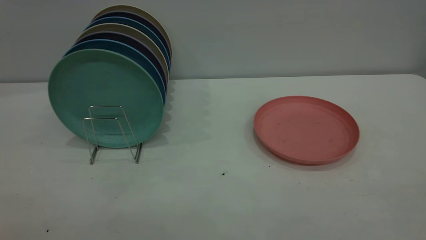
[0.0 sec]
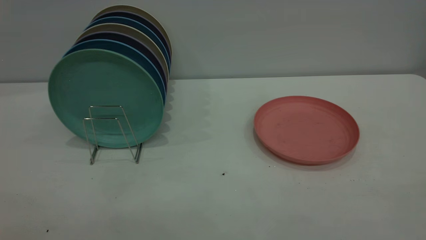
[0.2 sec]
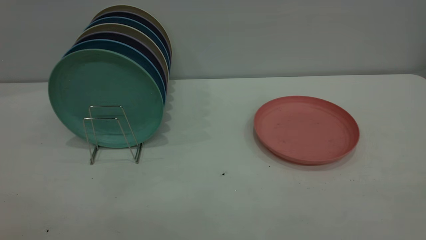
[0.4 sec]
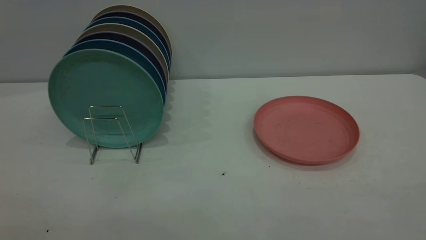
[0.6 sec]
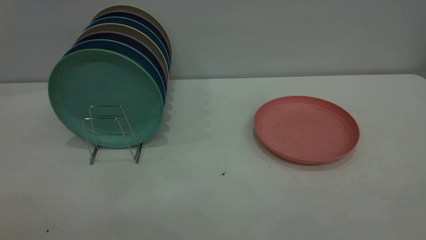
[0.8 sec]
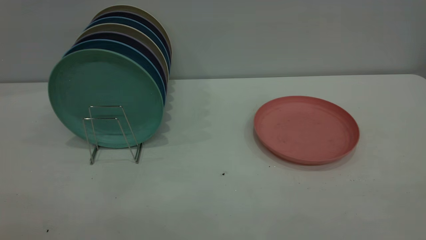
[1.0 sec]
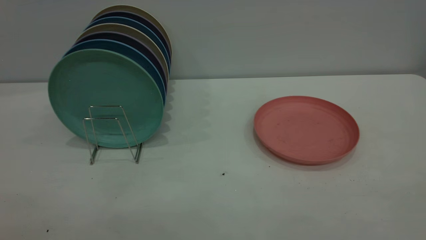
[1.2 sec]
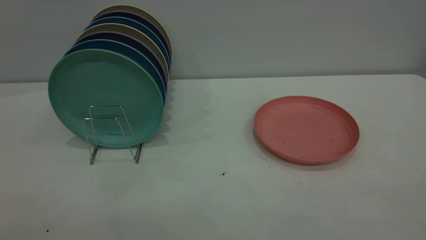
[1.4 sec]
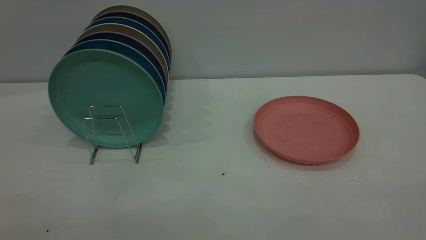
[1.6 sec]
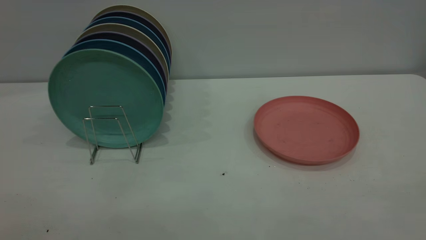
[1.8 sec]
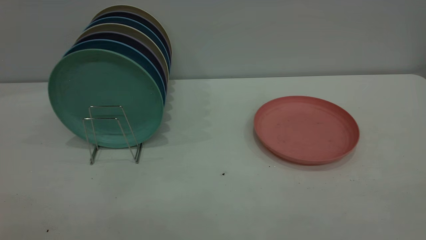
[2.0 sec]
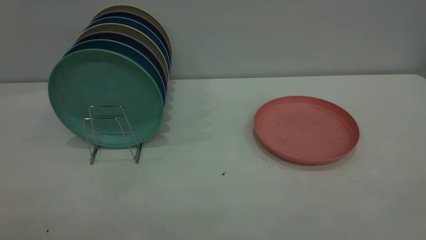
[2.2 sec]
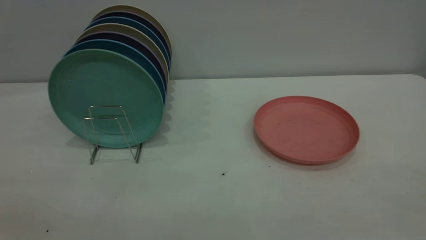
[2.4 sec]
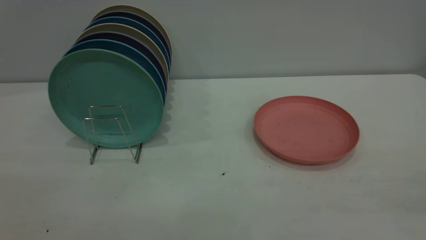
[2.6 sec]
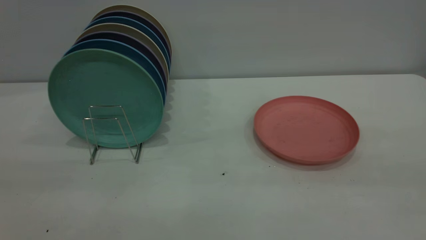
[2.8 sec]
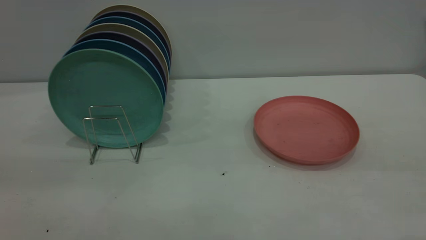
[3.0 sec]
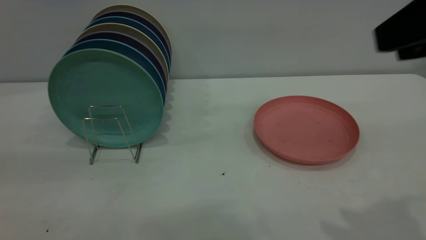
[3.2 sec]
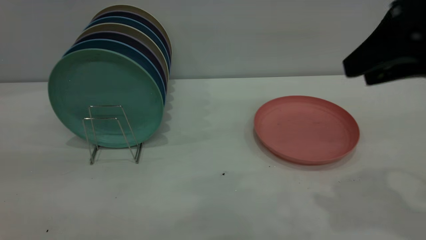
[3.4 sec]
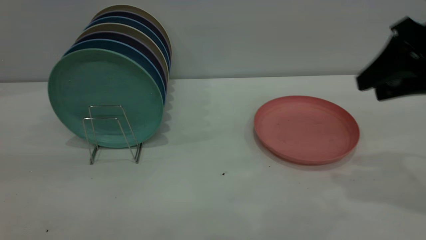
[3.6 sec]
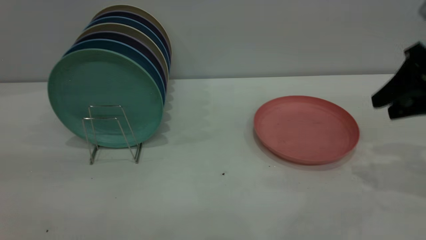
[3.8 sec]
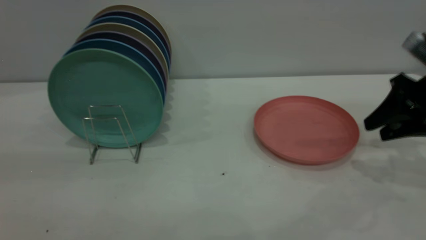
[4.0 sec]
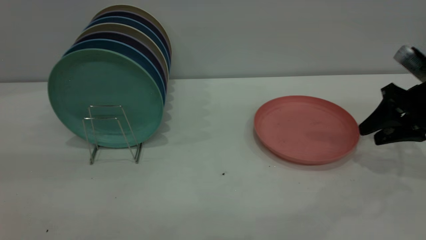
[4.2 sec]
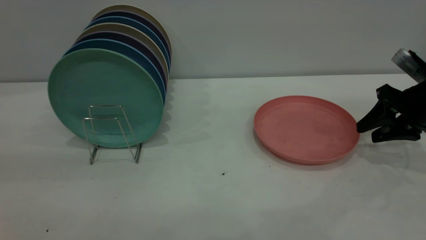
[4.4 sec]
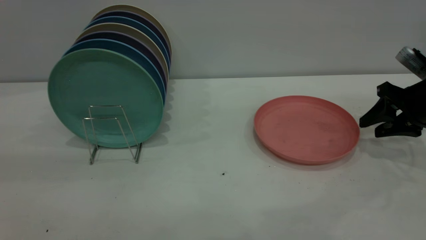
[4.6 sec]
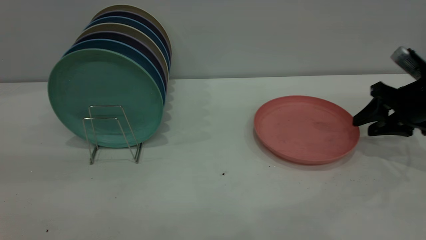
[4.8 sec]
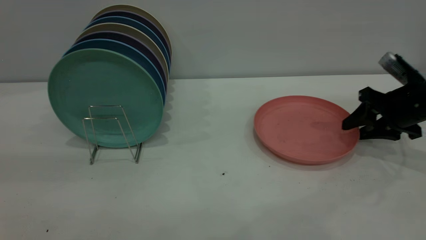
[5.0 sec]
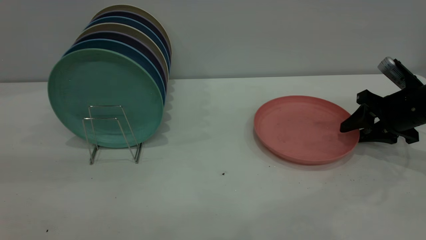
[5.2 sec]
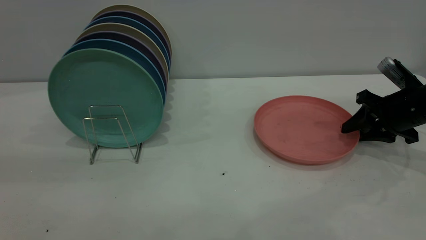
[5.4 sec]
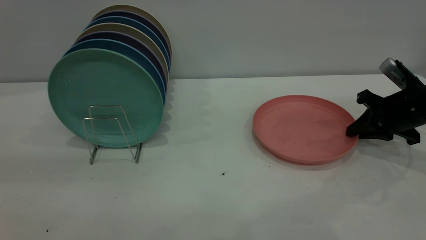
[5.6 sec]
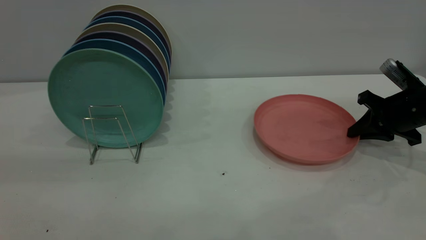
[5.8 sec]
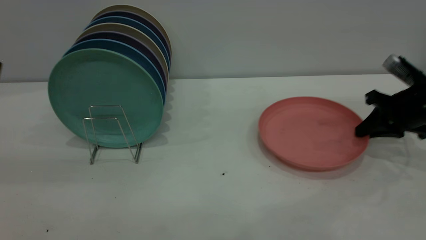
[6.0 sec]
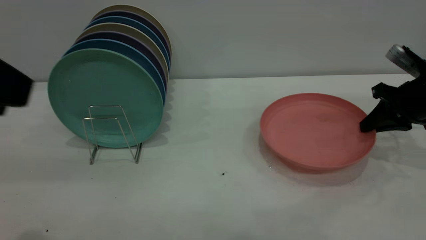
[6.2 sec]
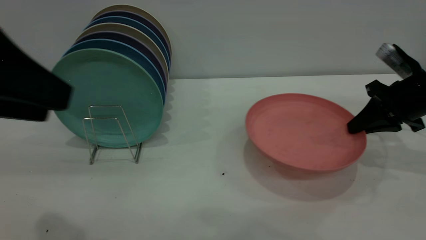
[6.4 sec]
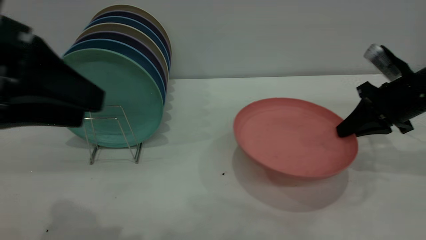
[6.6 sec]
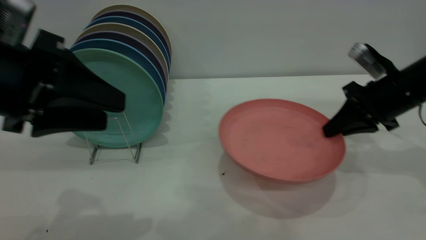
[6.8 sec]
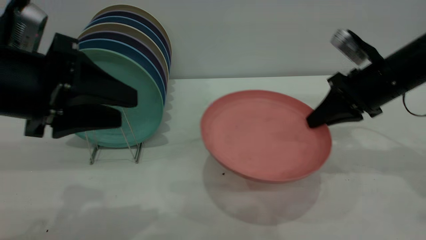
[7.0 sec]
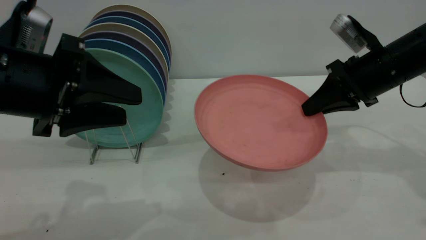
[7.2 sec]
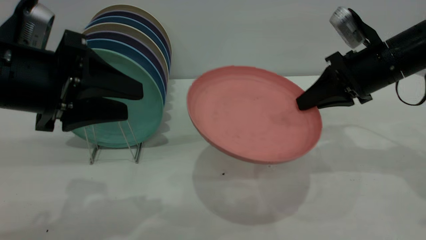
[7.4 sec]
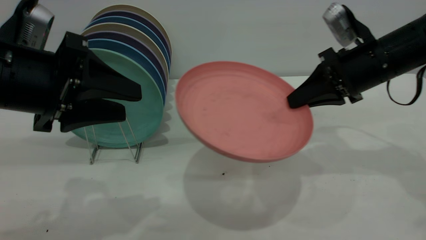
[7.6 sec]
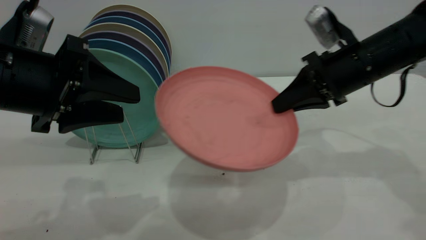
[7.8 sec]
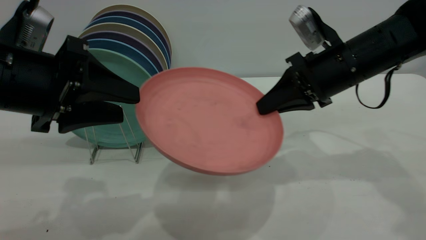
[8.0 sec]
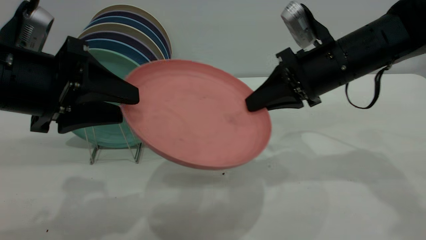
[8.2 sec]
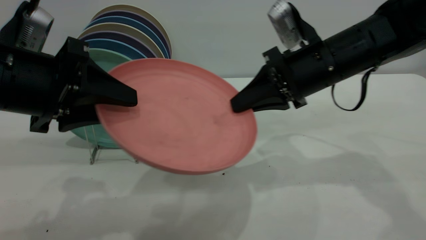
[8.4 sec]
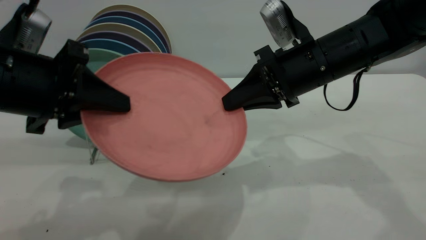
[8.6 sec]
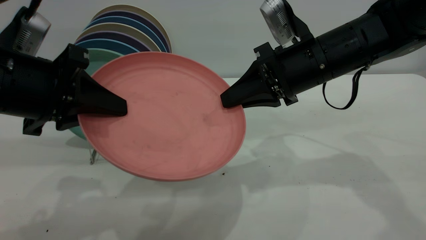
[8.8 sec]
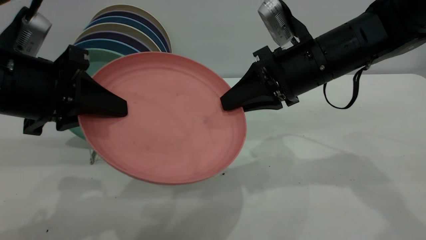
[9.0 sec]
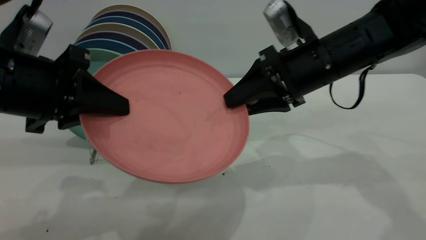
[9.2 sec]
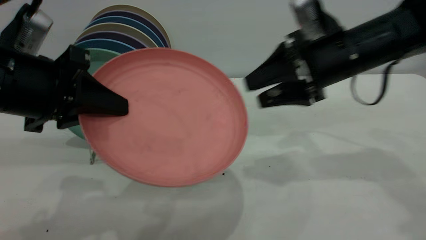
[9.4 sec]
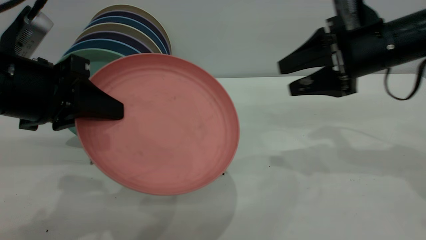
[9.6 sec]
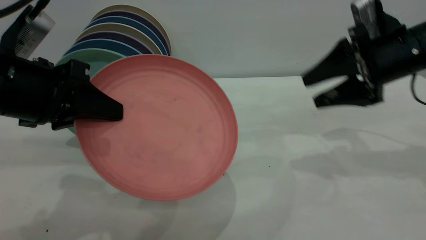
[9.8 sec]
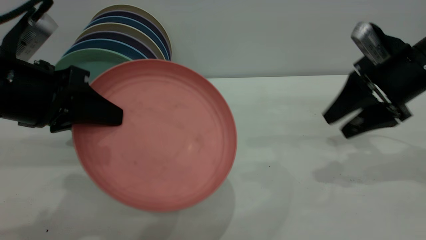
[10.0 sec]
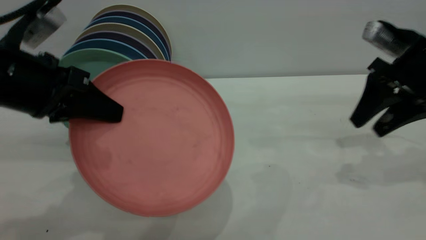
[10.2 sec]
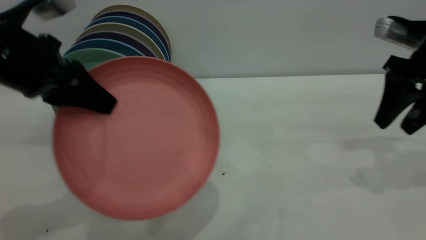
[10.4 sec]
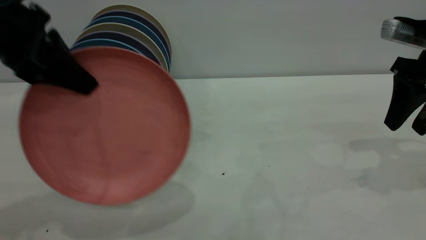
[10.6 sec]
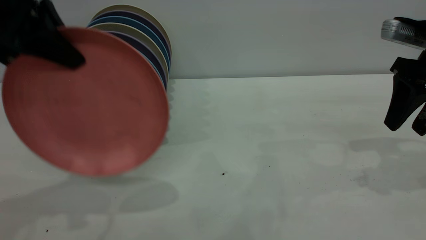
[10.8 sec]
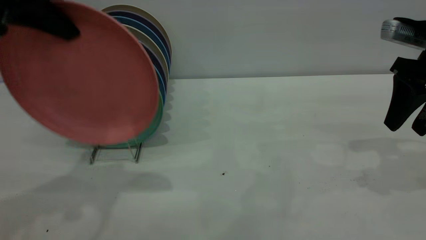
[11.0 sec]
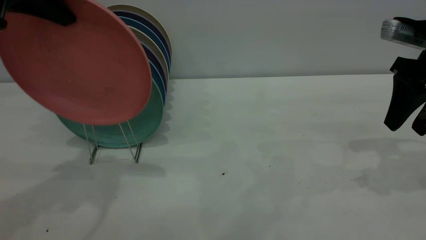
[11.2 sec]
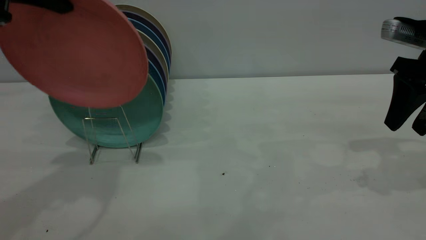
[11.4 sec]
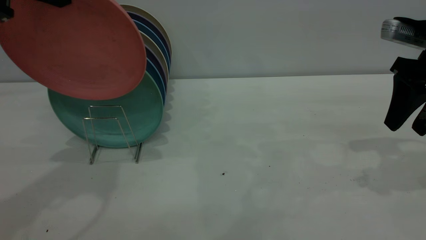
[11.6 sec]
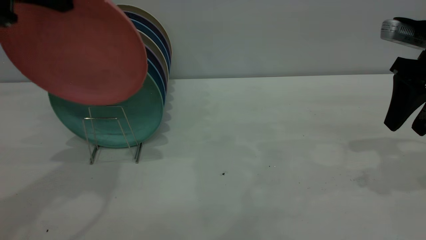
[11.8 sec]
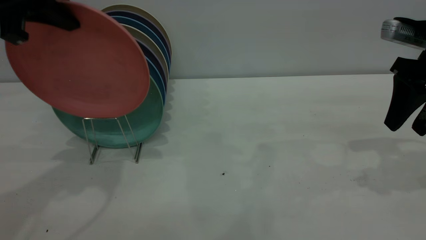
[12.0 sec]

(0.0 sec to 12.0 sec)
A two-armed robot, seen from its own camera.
Task of the whole recording: the right gripper grasp the pink plate, the right gripper pass the pink plate to the left gripper, and the left gripper place the pink plate on the plate rack.
Step, 0.0 sec - 6.4 sec: Pick up the plate with the right gripper.
Step, 6.6 sec - 9.4 sec: Pass the plate from the right gripper to the left gripper.
0.0 sec - 1.6 sec: Neither gripper changes place.
3.0 sec - 4.4 sec: The right gripper shifts some 35 cm downward, forward and to the right.
4.4 sec - 6.0 sec: The right gripper closes up.
6.0 sec - 7.6 sec: The left gripper heads downward and forward, covering roughly 15 cm. The right gripper moves to the left and upward, about 15 cm.
7.6 sec - 9.0 sec: The right gripper goes roughly 10 cm to the left; the left gripper closes.
9.0 sec - 10.4 sec: The right gripper shifts approximately 15 cm to the right, and opens its fingers; the left gripper changes place by about 5 cm.
10.4 sec - 12.0 sec: The left gripper goes approximately 10 cm upward and forward.

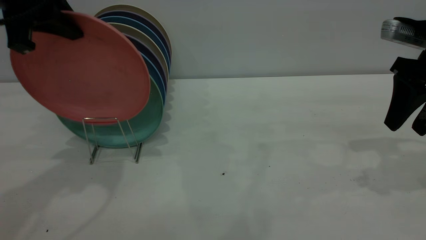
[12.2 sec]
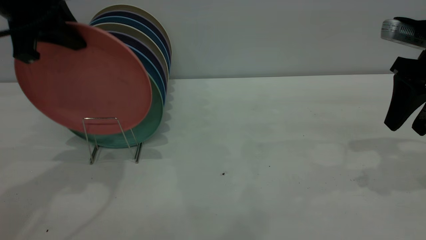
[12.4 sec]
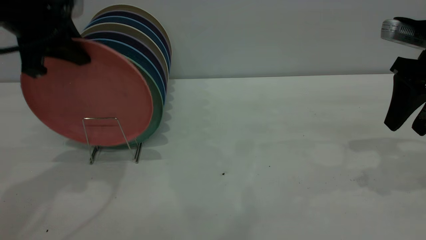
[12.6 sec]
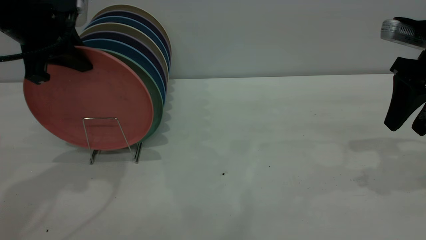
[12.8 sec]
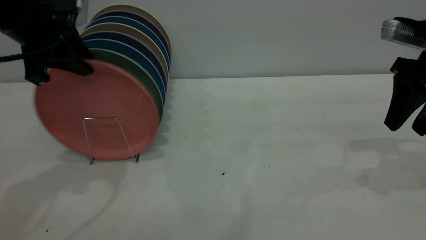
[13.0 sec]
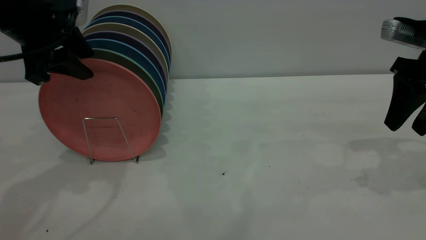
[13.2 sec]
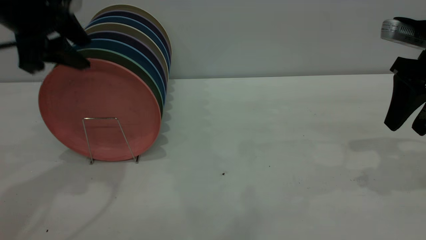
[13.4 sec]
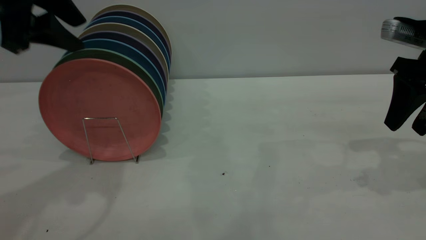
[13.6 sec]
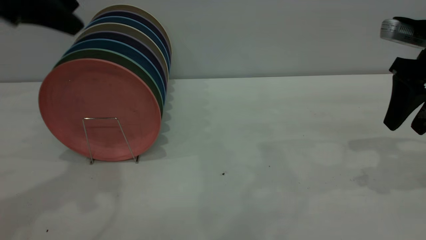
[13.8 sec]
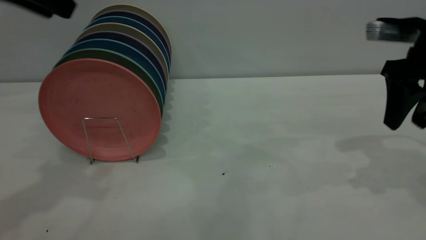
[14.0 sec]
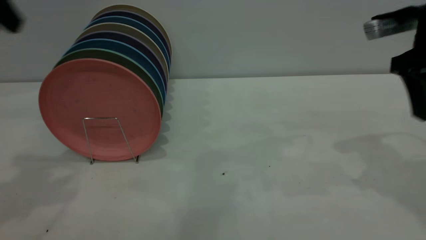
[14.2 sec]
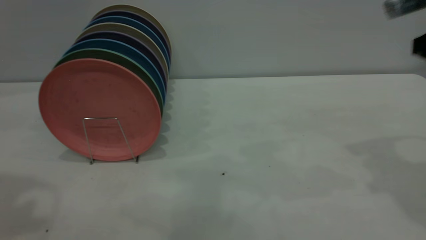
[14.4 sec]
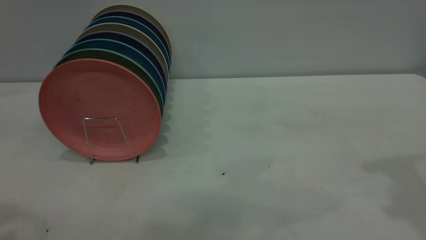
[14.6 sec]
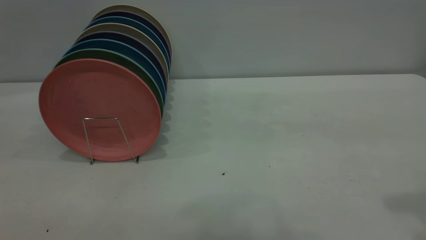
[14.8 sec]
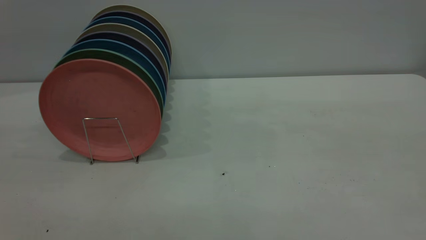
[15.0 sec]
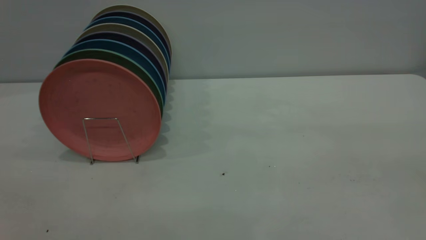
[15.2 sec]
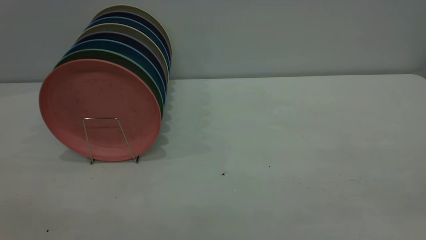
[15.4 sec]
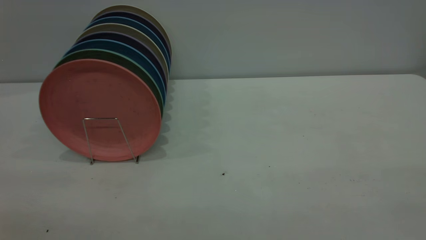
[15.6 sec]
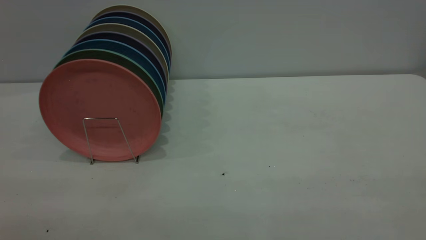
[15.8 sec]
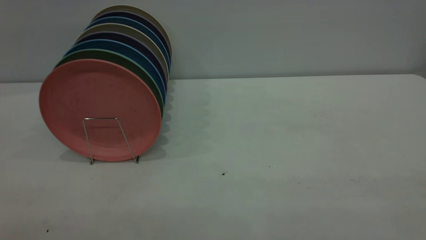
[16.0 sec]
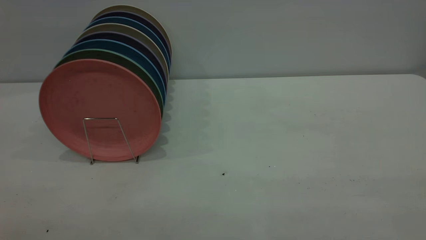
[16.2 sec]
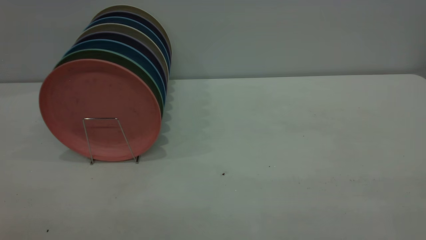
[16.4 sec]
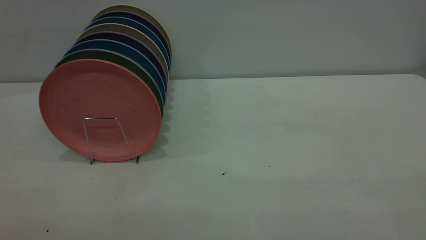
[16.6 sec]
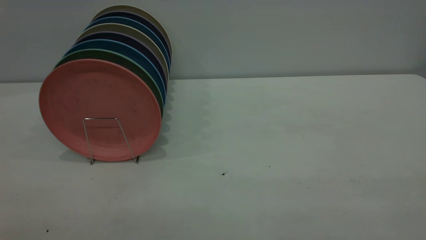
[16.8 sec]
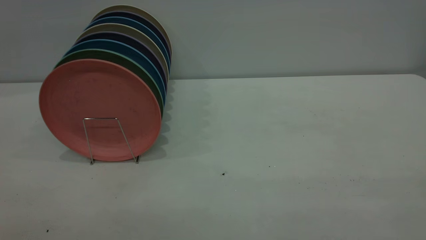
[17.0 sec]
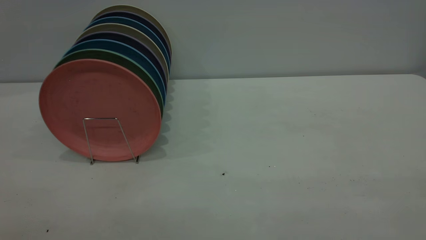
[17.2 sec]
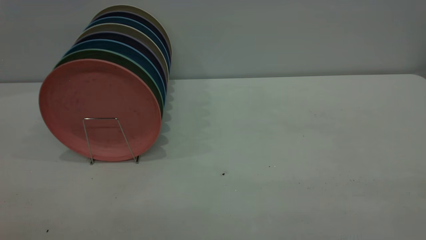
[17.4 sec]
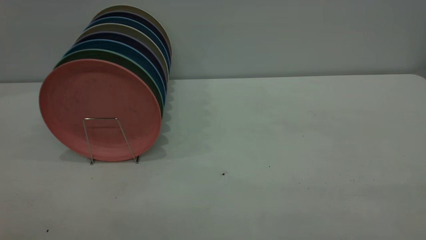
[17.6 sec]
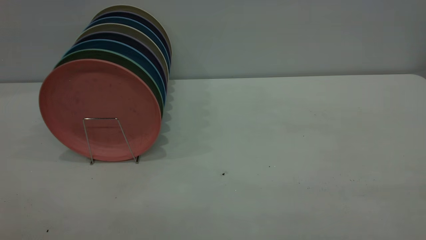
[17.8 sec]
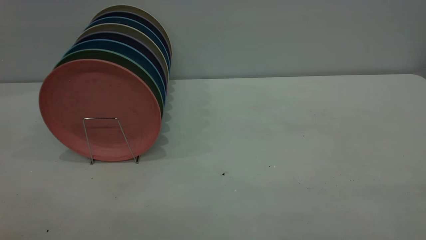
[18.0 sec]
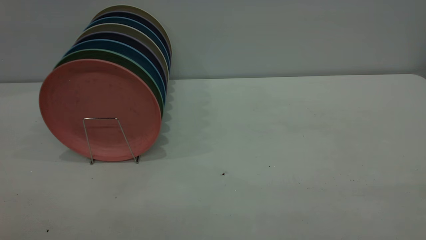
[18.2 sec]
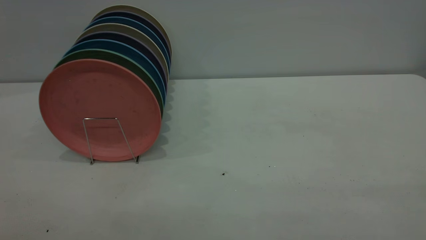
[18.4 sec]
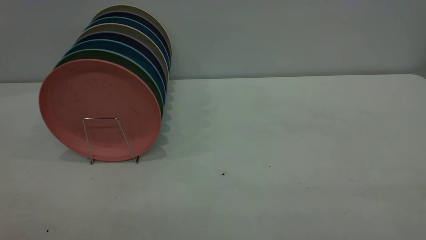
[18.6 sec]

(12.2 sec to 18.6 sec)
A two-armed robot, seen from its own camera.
Task of the whole recording: the right gripper grasp the pink plate, the right gripper pass the pink plate to the left gripper, and the left gripper place the pink plate on the plate rack.
12.2 sec - 13.8 sec: The left gripper opens.
13.8 sec - 15.4 sec: The left gripper goes approximately 30 cm backward, while the right gripper heads backward and upward, covering about 40 cm.
